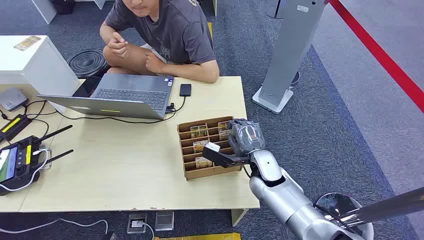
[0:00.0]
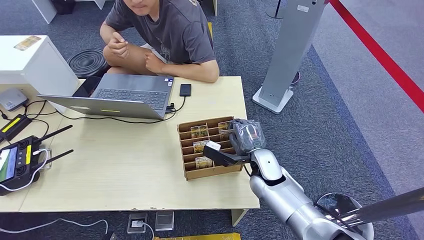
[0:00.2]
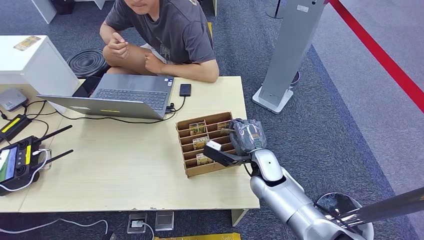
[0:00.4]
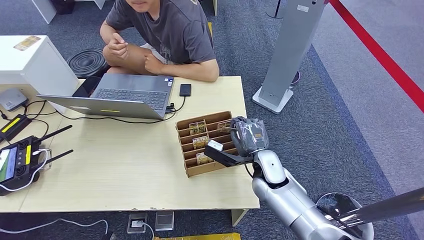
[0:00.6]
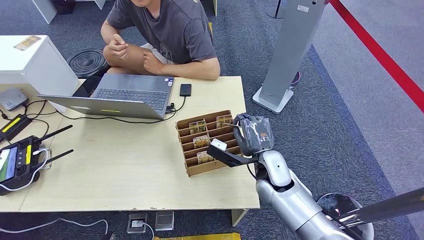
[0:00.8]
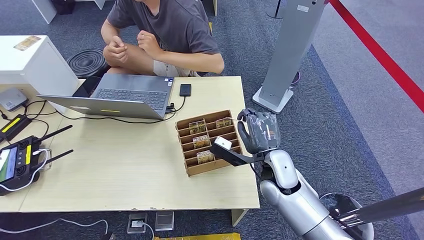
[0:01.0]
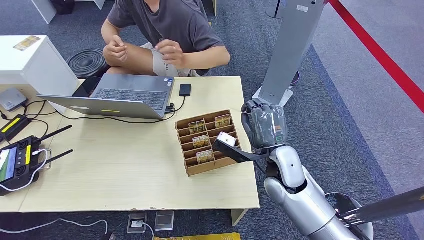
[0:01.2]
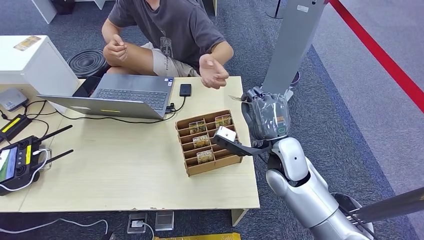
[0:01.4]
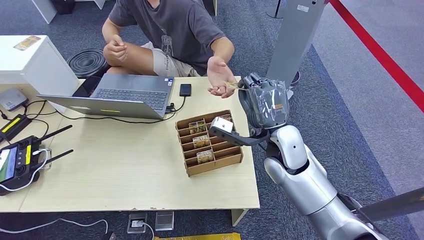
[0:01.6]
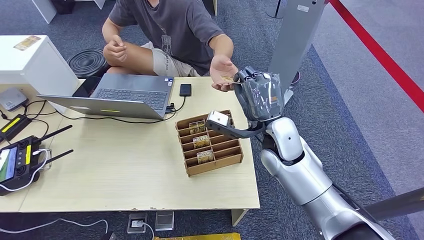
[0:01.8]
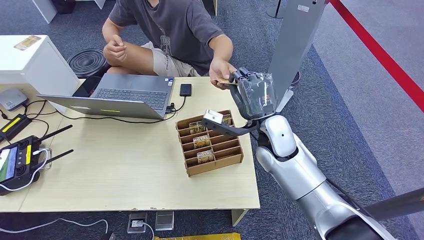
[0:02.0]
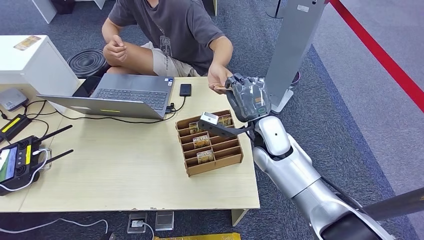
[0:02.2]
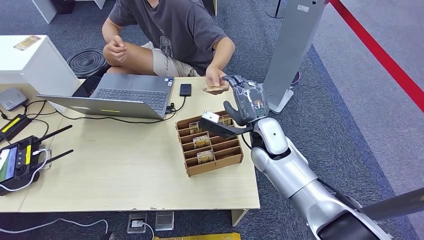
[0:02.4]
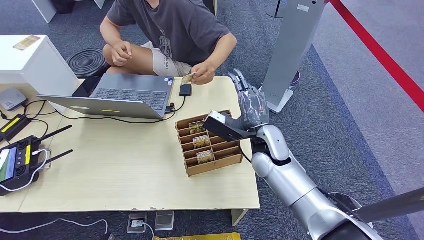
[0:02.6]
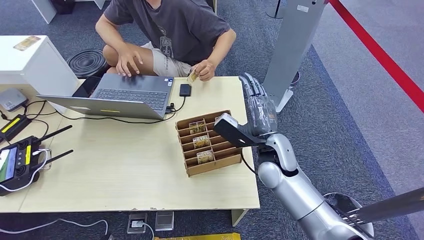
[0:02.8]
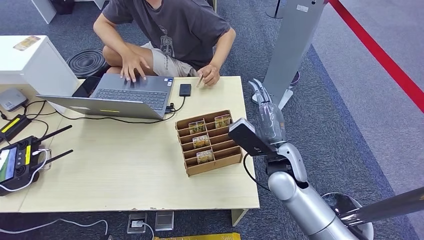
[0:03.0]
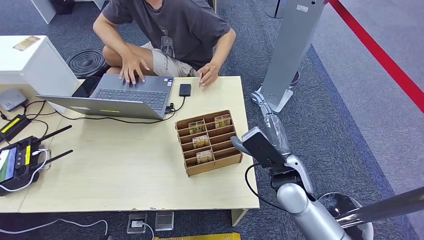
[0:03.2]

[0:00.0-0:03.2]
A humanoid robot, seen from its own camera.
Step, 0:00.0 to 0:01.0: Pick up the key card from the card box.
Step, 0:01.2 to 0:03.2: Hand the key card to the target.
0:01.6 to 0:03.2: The right hand travels backward and downward by roughly 5 cm.

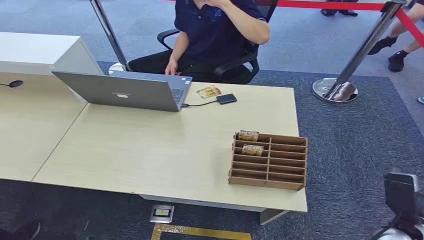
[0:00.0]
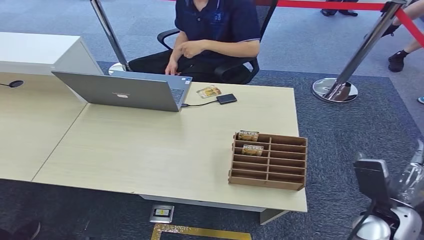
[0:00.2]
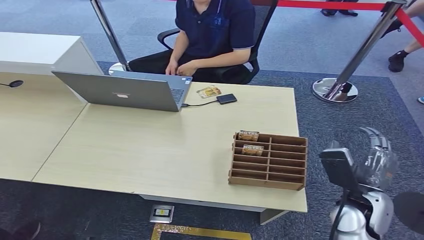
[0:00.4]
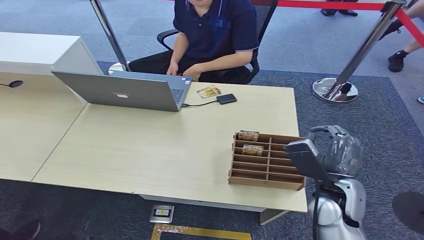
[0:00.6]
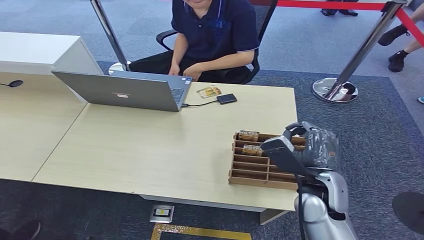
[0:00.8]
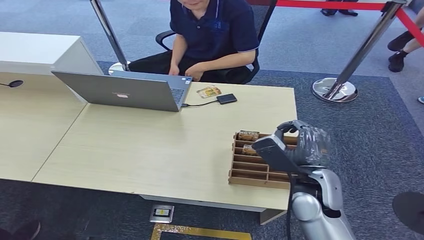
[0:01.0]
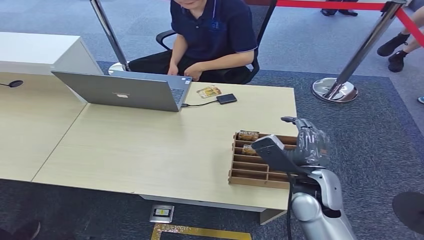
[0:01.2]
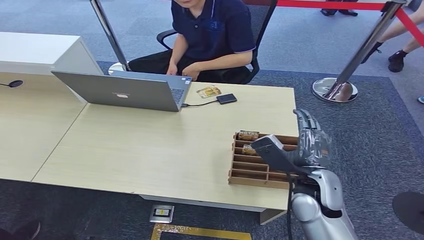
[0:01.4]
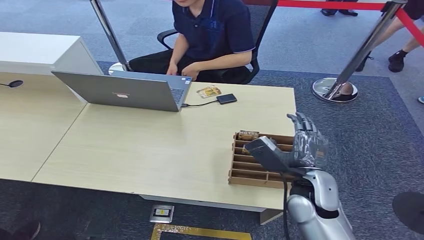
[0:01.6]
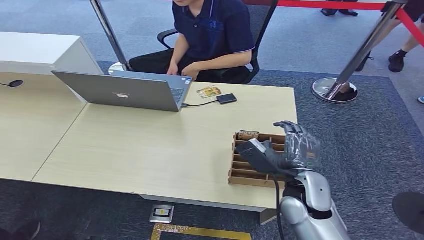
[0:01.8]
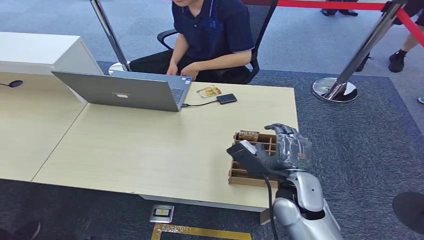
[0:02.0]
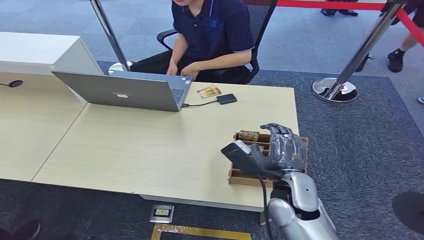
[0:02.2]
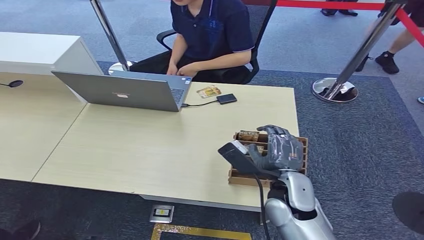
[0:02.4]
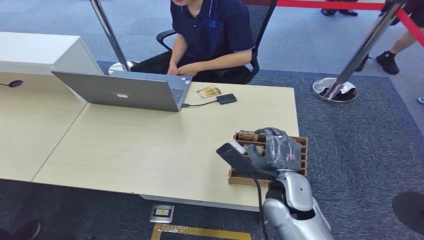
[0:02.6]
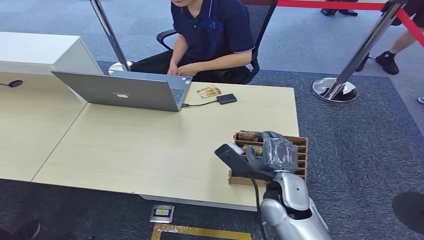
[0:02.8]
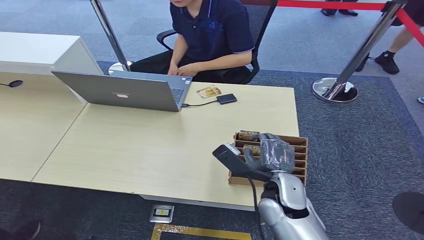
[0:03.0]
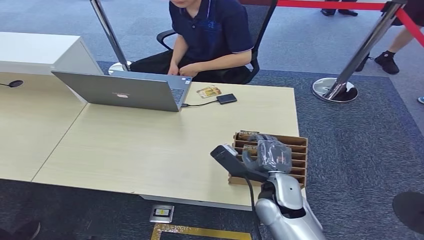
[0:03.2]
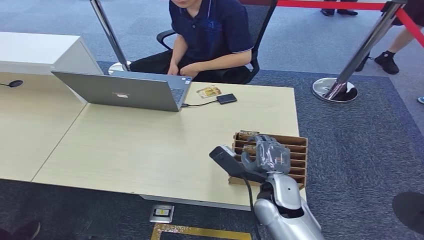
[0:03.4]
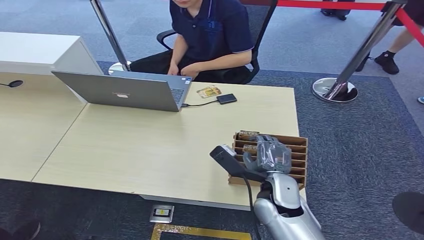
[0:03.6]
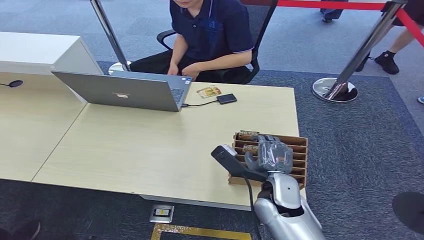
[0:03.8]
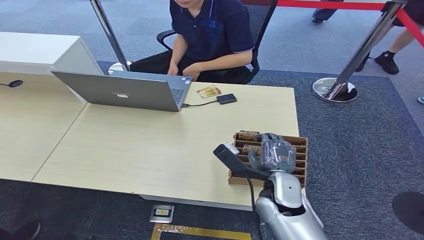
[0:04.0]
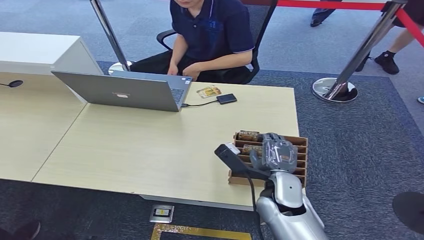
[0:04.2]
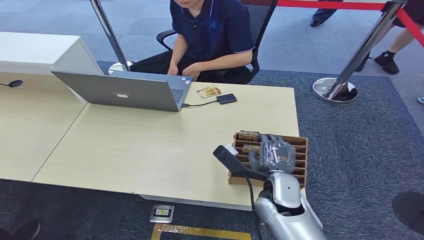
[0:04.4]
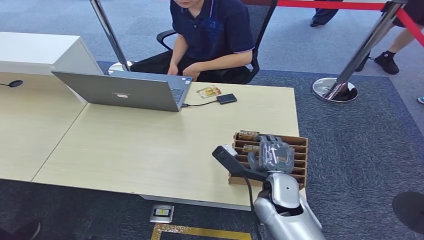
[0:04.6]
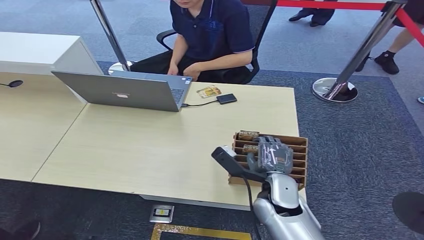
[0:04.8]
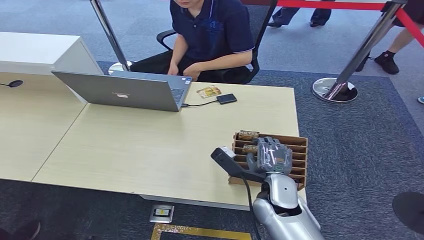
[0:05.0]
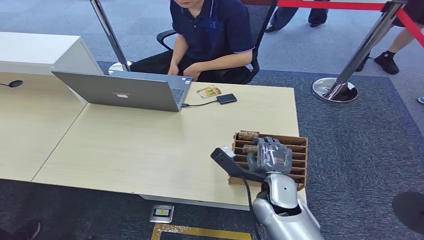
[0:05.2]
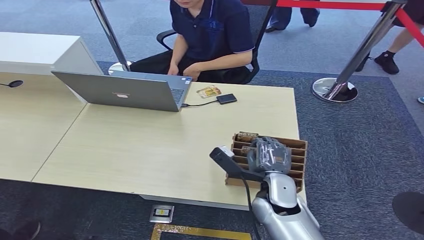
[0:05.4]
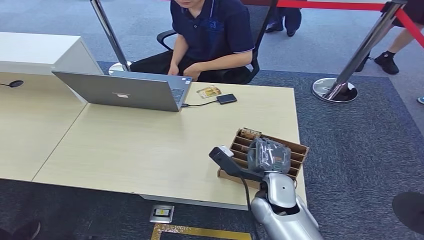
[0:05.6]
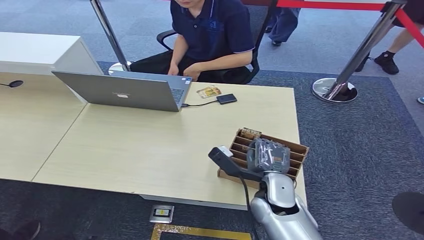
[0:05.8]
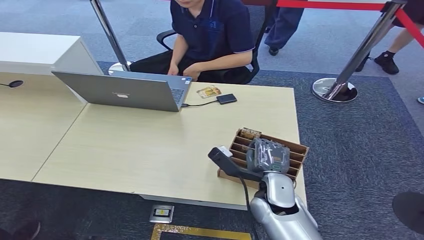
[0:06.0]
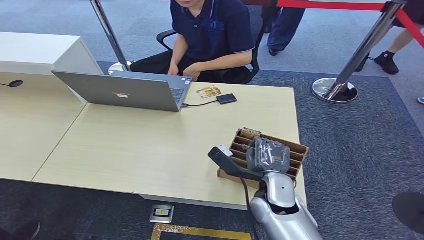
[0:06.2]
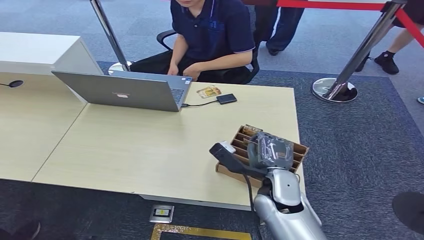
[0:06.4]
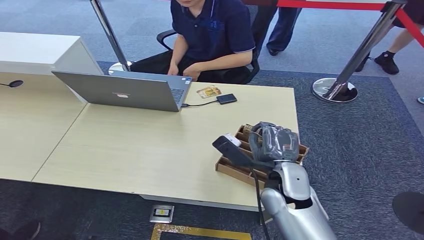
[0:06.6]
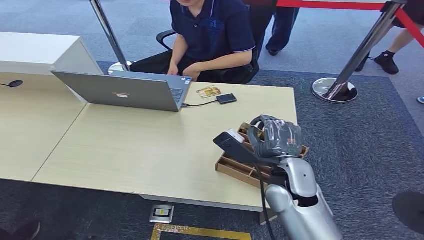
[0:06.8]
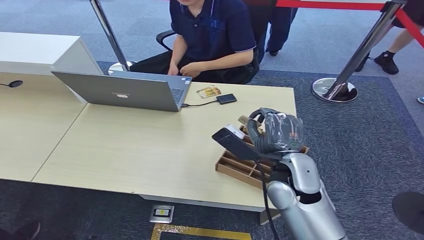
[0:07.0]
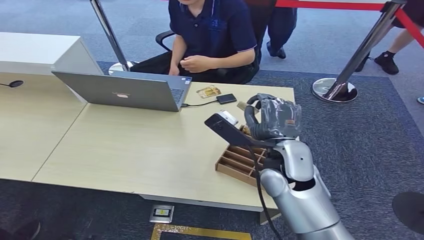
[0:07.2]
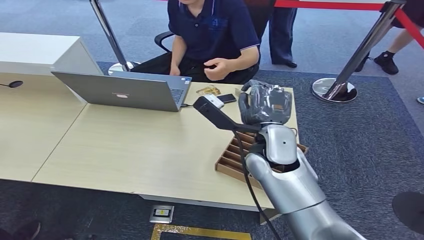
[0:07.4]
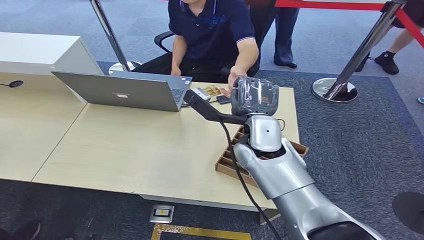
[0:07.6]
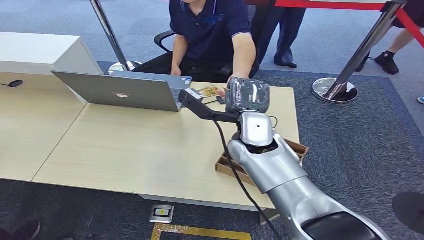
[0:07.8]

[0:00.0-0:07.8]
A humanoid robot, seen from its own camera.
Step, 0:00.0 to 0:06.2: Pick up the key card from the card box.
Step, 0:06.4 to 0:07.8: Hand the key card to the target.
0:01.6 to 0:03.2: The right hand is displaced to the left by about 5 cm.
0:03.2 to 0:04.6: The hands make only small movements.
0:04.6 to 0:06.2: The two hands keep their place.
0:06.2 to 0:07.8: The right hand shifts roughly 20 cm upward and forward.
